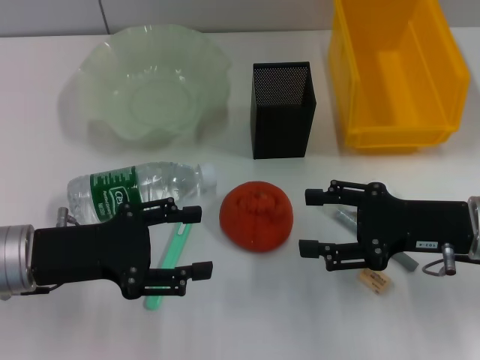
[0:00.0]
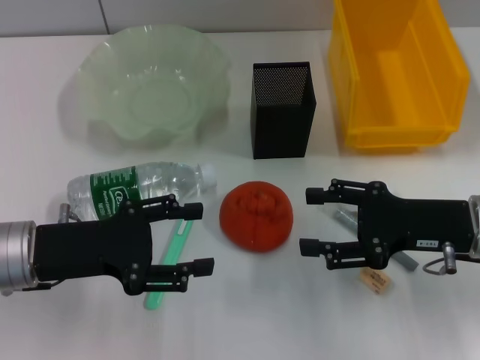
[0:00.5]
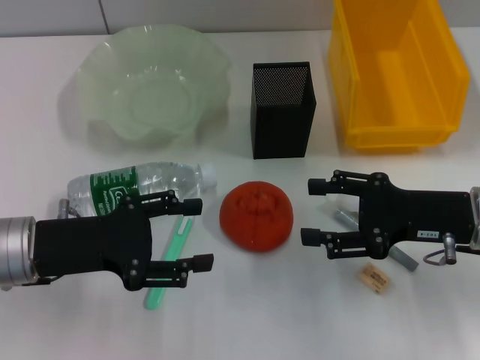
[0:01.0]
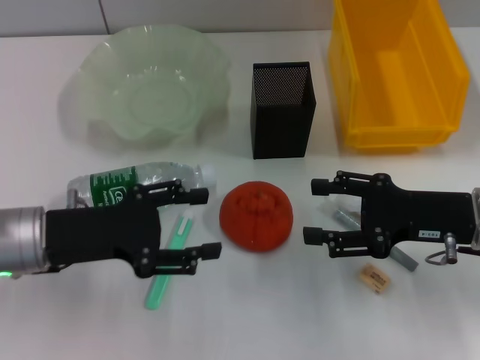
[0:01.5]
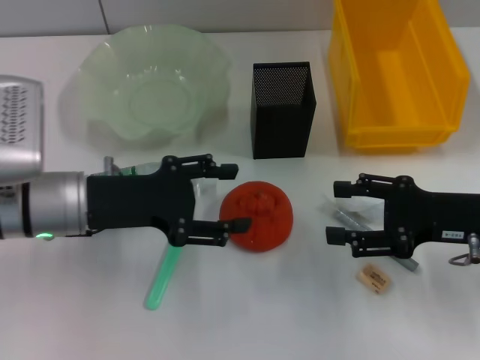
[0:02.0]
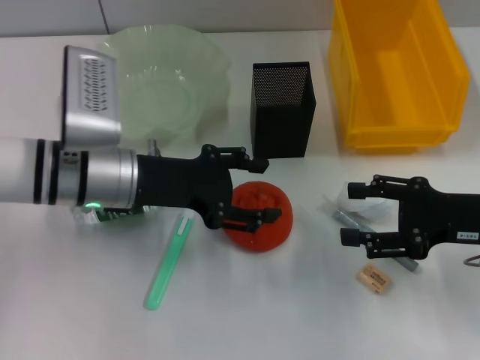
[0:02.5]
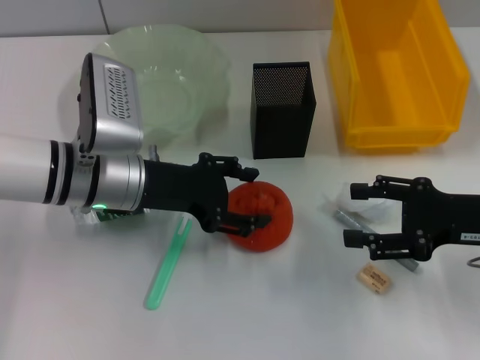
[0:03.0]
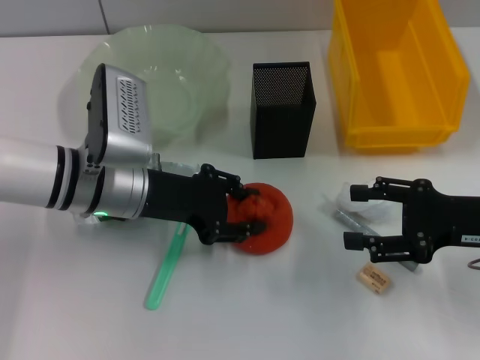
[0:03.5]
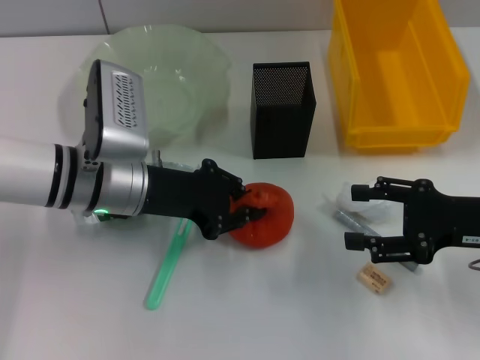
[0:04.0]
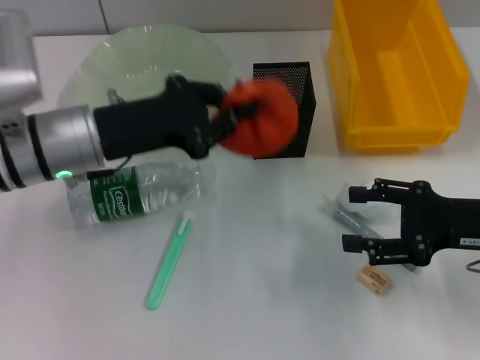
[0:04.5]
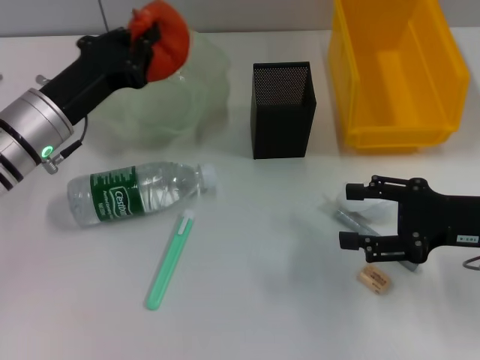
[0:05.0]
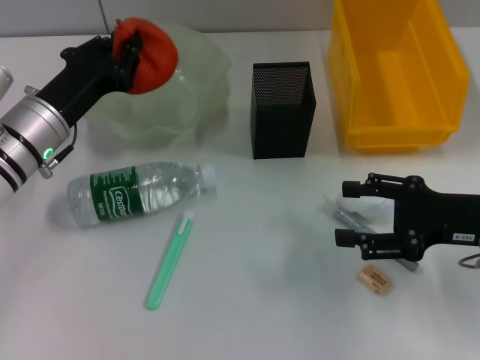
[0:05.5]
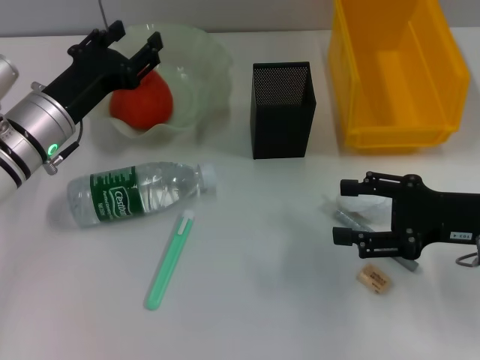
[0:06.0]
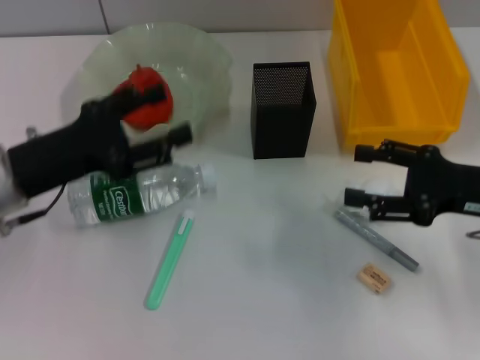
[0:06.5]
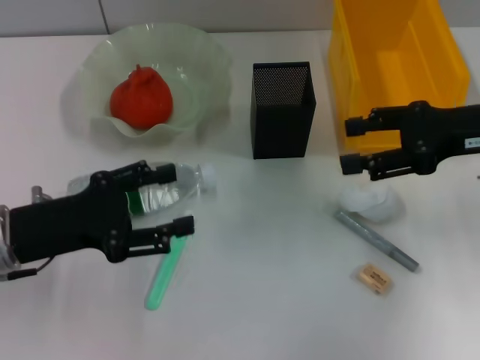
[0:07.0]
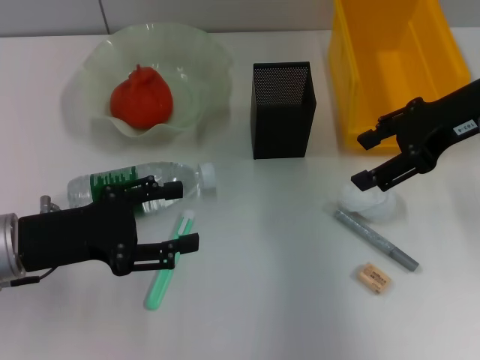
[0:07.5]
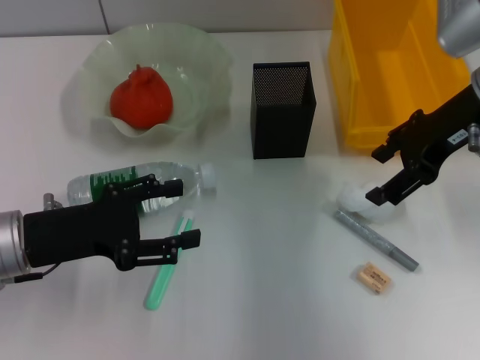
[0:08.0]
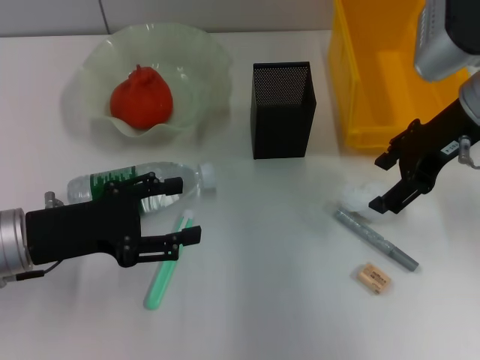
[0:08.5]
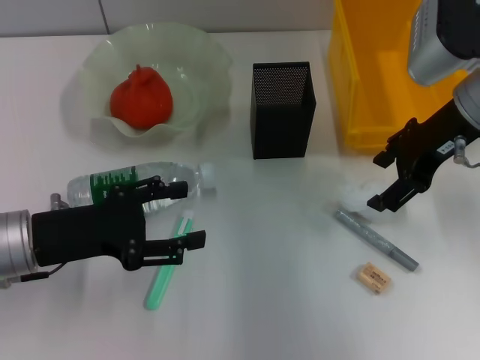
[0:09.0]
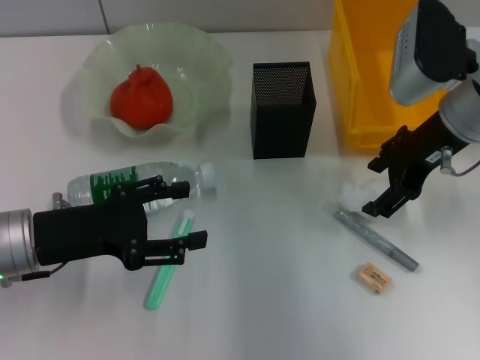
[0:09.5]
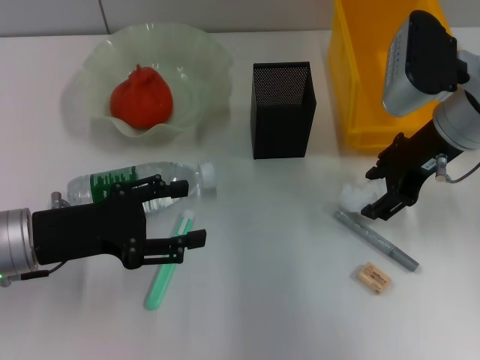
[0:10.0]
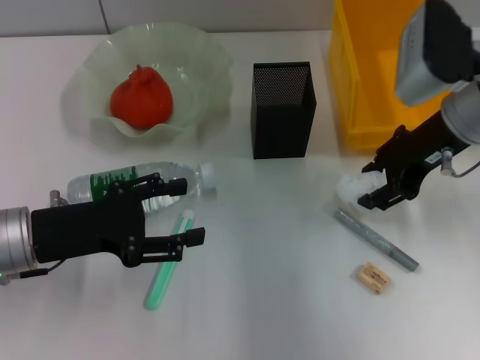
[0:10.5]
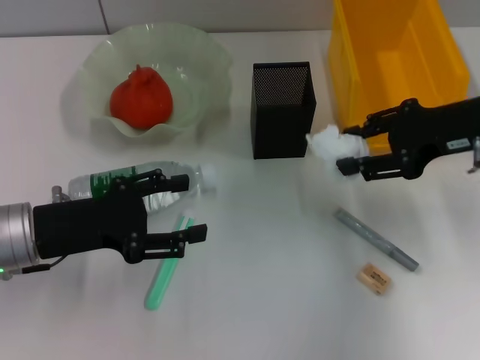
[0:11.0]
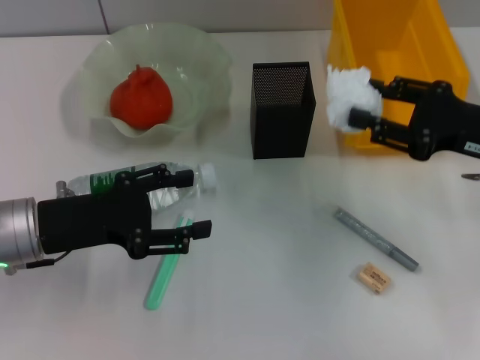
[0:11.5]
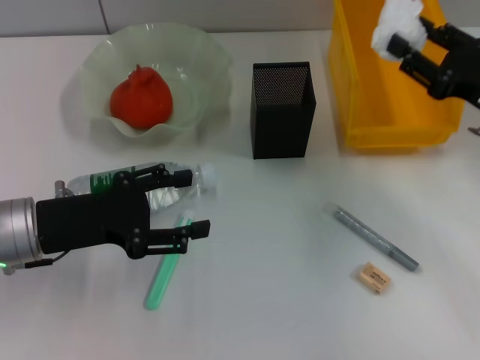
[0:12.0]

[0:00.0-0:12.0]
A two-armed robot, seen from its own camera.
Step, 0:00.0 to 0:03.5: Grab the orange with the left hand.
Step, 0:04.0 to 0:05.5: Place the orange into the fruit bowl with the left hand.
Step, 0:06.0 to 0:10.0: Grab the paper ball with the right hand.
0:00.0 to 0:02.0: The left gripper ends up about 5 cm from where it was.
0:02.0 to 0:04.0: The left gripper changes place by approximately 5 cm, and closes up.
0:04.0 to 0:06.0: The left gripper goes some 5 cm to the left, and opens up.
0:06.0 to 0:08.0: The left gripper travels backward by approximately 10 cm, and opens its fingers. The right gripper goes approximately 15 cm upward, forward and to the left.
0:08.0 to 0:10.0: The grippers make only small movements.
0:10.0 to 0:12.0: The right gripper shifts about 10 cm to the right, backward and downward, and closes its fingers.

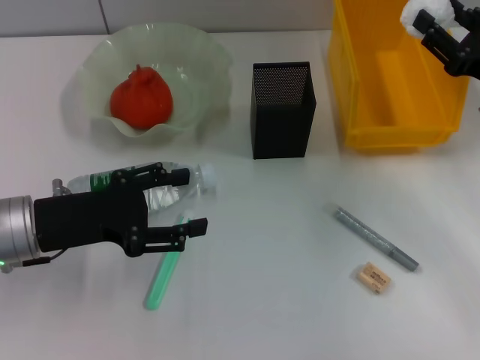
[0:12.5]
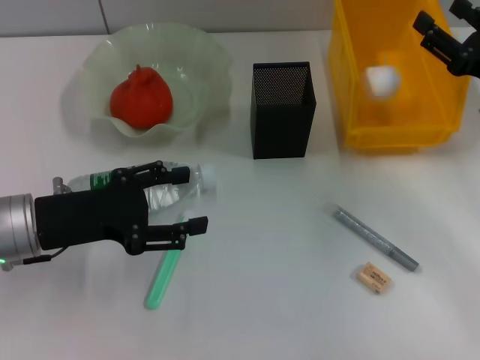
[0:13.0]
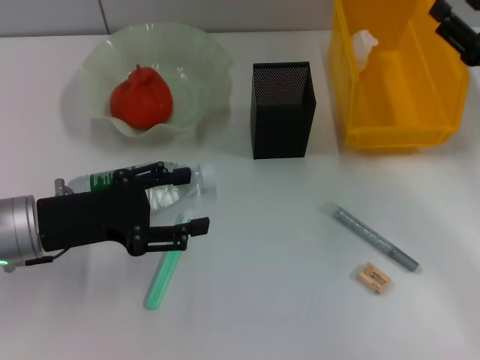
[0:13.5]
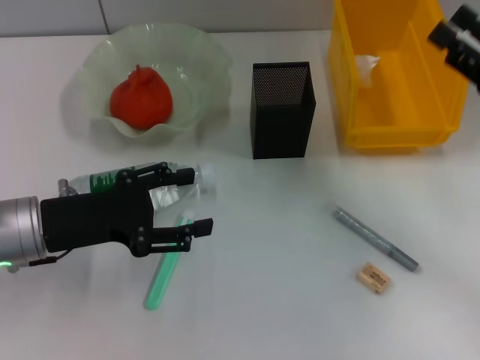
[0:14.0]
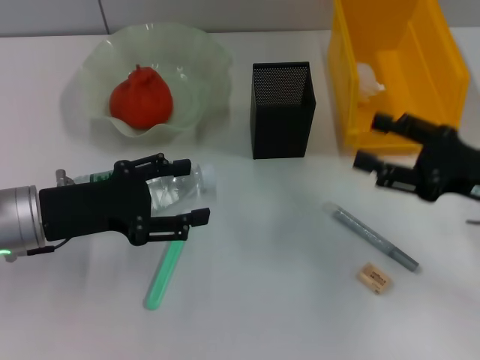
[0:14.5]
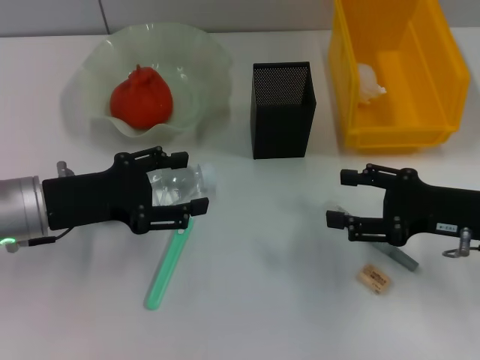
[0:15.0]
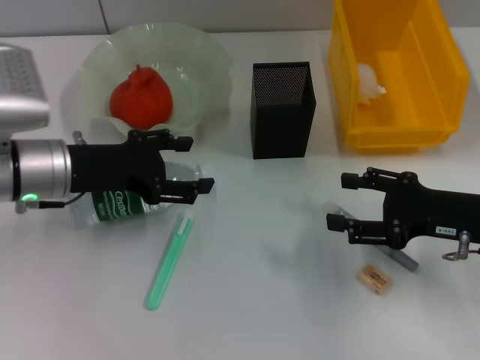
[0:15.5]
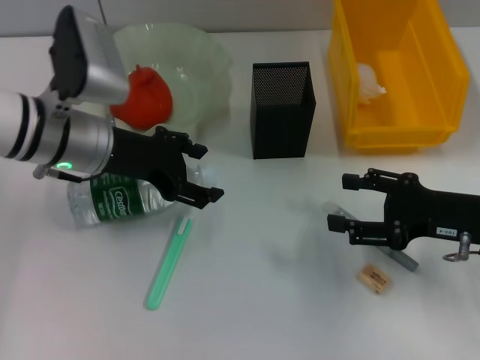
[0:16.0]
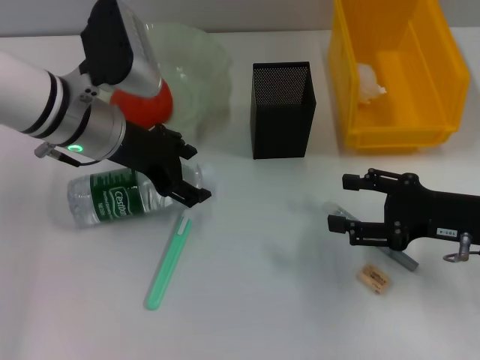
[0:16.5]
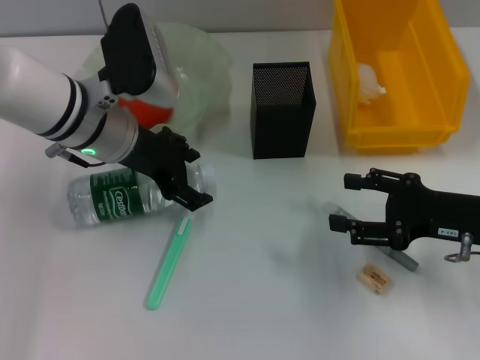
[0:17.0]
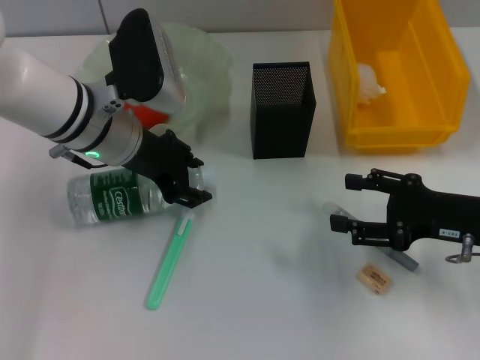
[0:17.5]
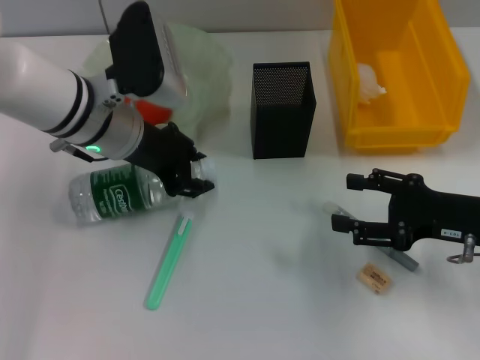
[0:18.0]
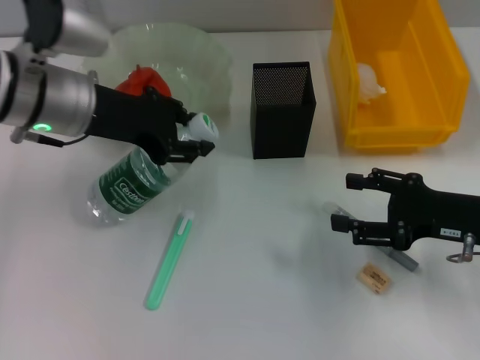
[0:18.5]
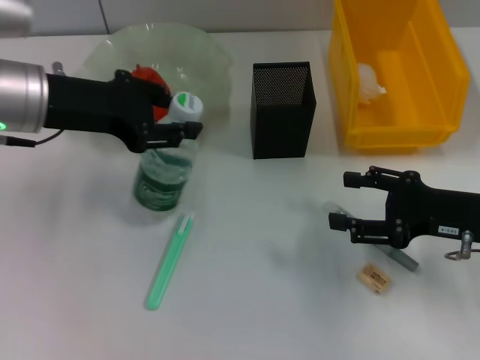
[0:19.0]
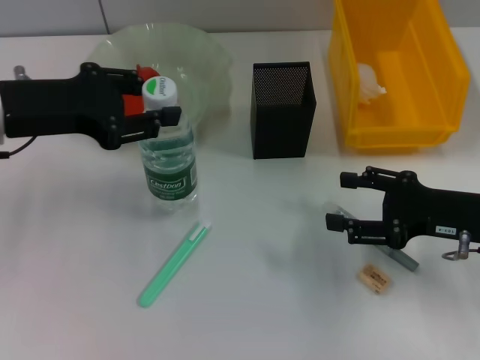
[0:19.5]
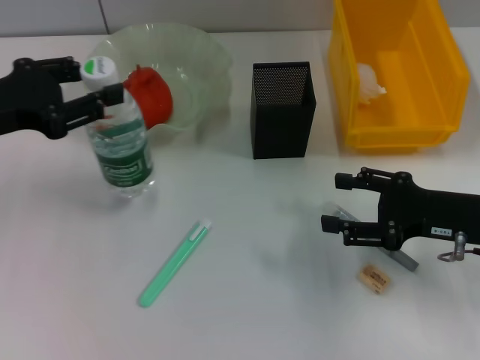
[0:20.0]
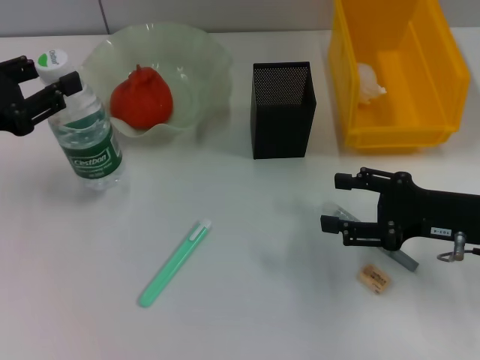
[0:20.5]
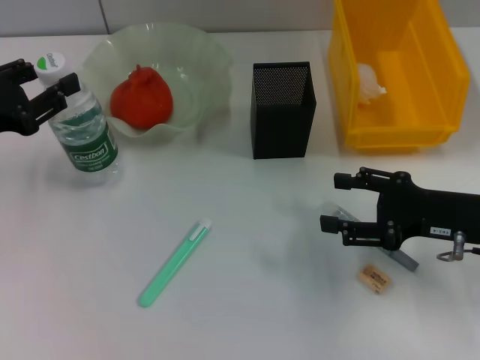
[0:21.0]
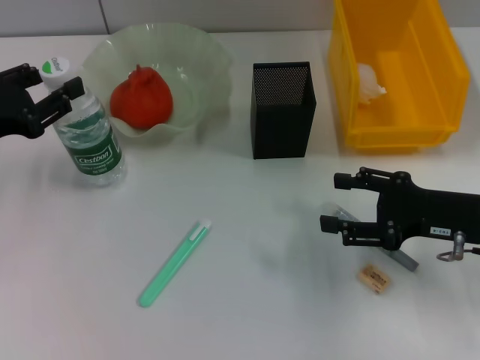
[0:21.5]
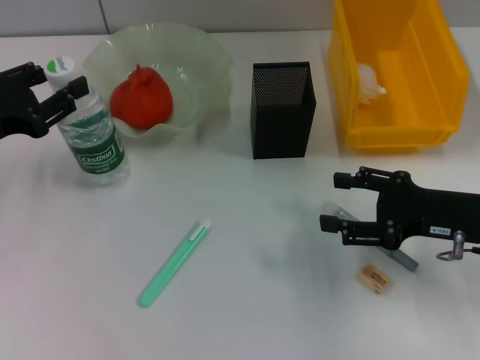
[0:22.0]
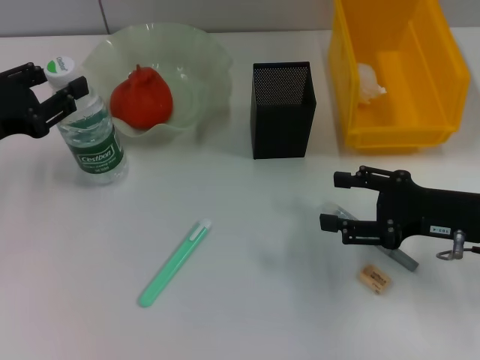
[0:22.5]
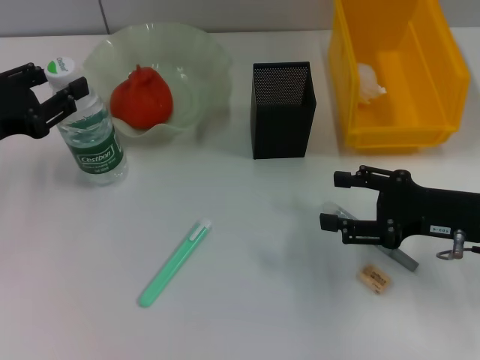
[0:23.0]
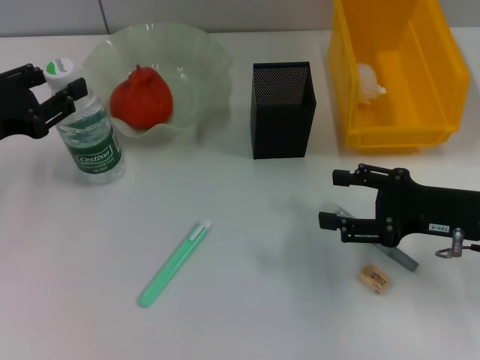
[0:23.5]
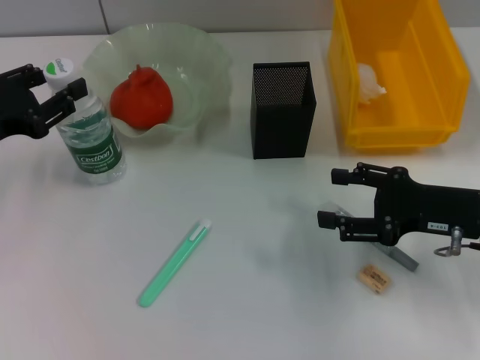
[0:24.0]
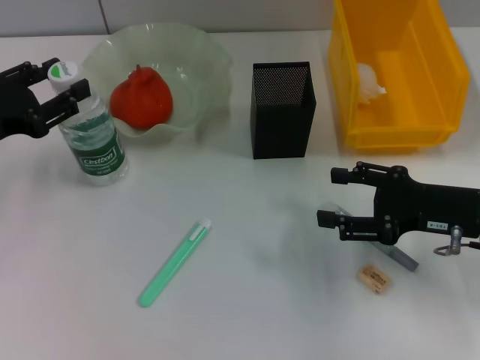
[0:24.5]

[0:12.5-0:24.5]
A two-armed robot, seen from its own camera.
Step, 0:13.5 to 0:17.5: Grab the water bottle with the left hand.
0:12.5 to 0:14.5: The right gripper is displaced backward by approximately 5 cm, and opens its fingers.
0:14.5 to 0:16.5: The left gripper is displaced forward, to the right and upward by some 15 cm.
0:16.5 to 0:18.5: The left gripper closes up.
0:18.5 to 0:20.5: The left gripper heads to the left and backward, covering roughly 15 cm.
0:20.5 to 0:22.5: The grippers move only a little.
0:22.5 to 0:24.5: Neither gripper changes place.

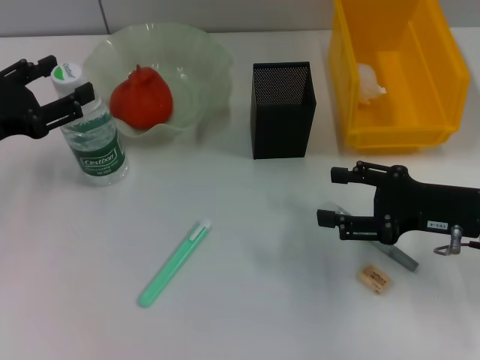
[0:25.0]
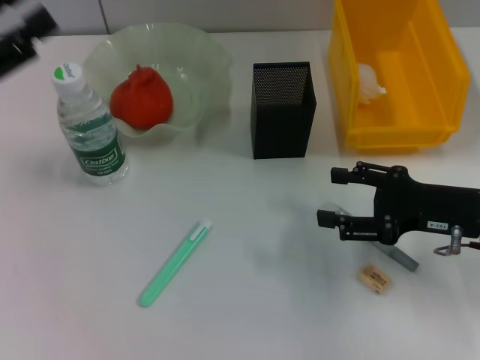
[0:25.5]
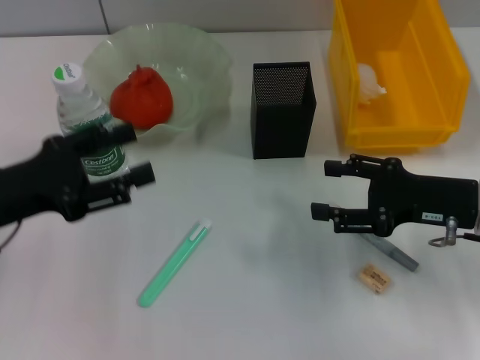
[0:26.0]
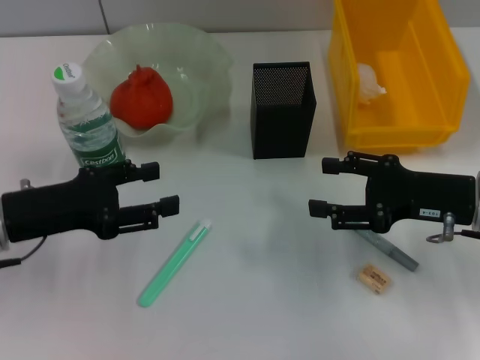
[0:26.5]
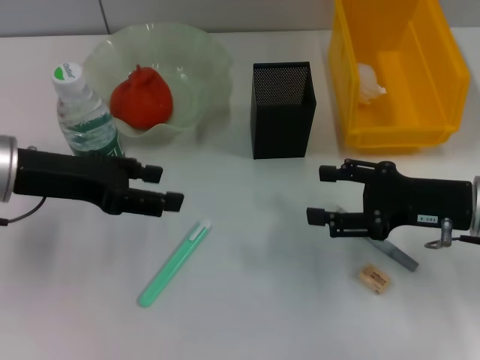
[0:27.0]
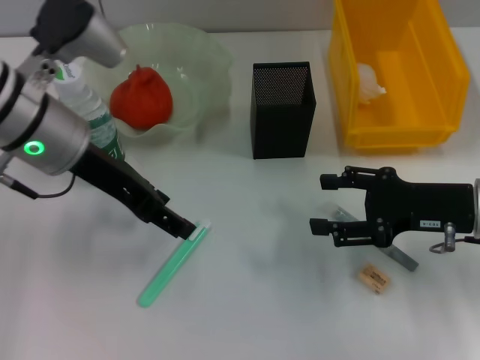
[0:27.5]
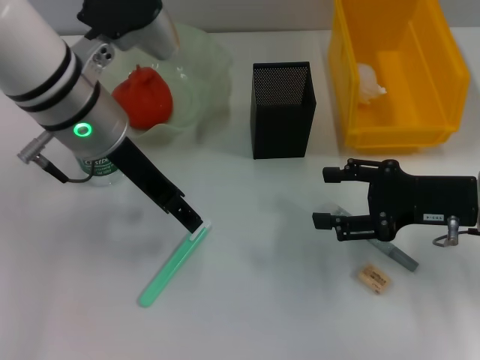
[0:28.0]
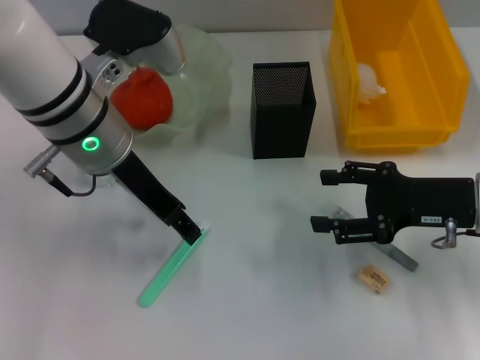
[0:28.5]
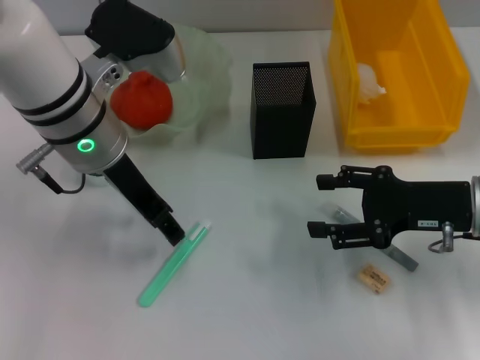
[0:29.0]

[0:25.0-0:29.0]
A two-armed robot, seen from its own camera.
0:25.0 to 0:27.0: The left gripper moves to the right, roughly 5 cm.
0:27.0 to 0:29.0: The left gripper moves to the right, approximately 10 cm.
